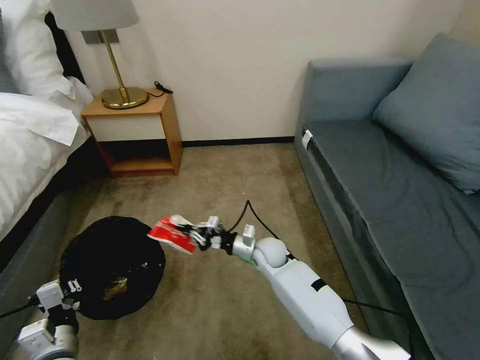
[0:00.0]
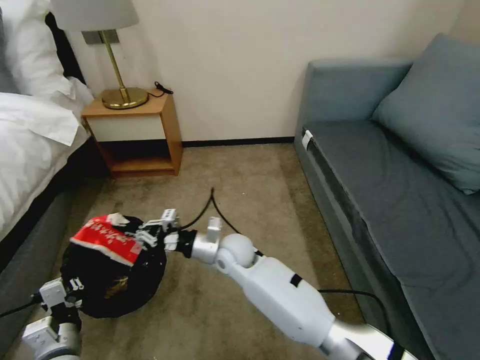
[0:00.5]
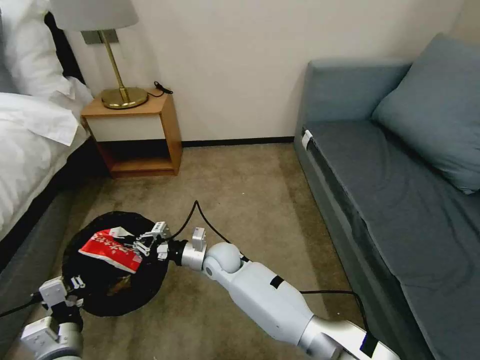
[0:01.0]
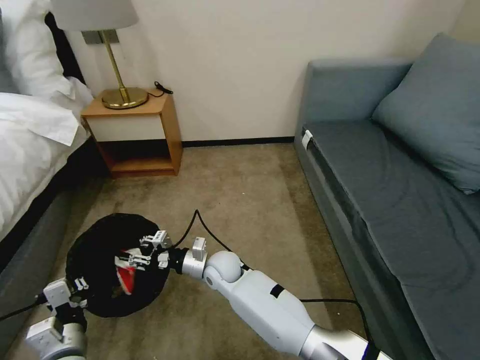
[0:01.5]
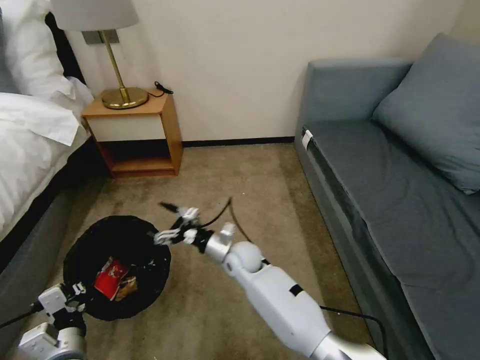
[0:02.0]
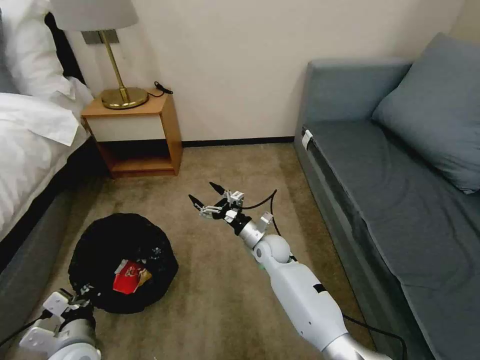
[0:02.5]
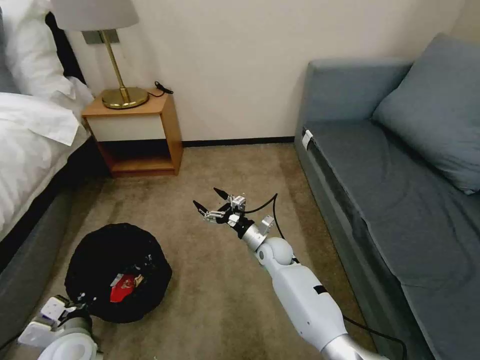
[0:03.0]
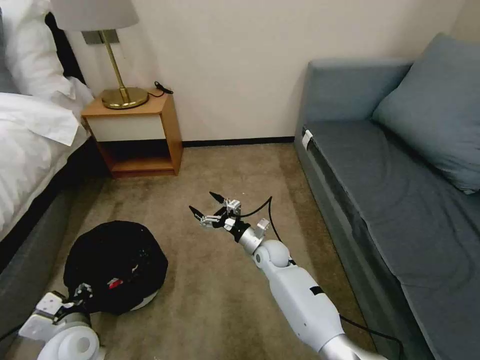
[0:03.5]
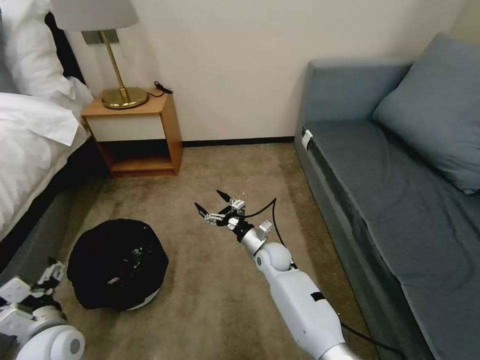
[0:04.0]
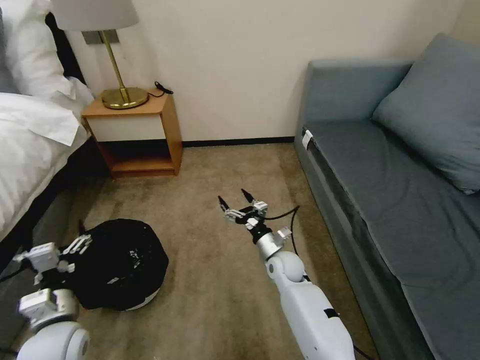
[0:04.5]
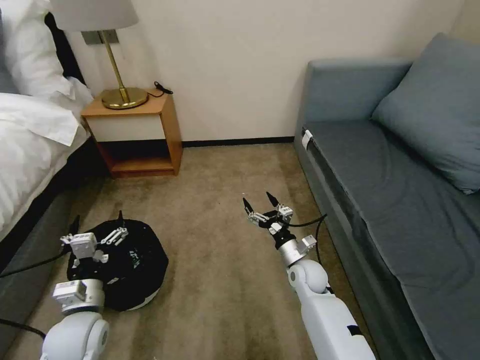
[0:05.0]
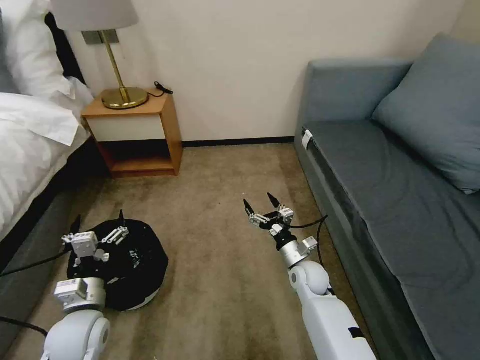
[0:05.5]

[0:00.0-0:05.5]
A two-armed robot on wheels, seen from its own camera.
Task of the whole recording: Pick up the trash bin, then pick up the garbage on the floor and place it into the trash bin.
0:00.0 to 0:02.0: The right gripper goes roughly 10 cm to the left, and opens.
0:02.0 to 0:03.5: The right gripper is displaced to the right by approximately 10 cm; the left gripper is displaced forward by approximately 5 cm, and opens its fingers.
0:03.5 to 0:05.5: The left gripper opens up; the right gripper travels to the right and backward by some 10 cm.

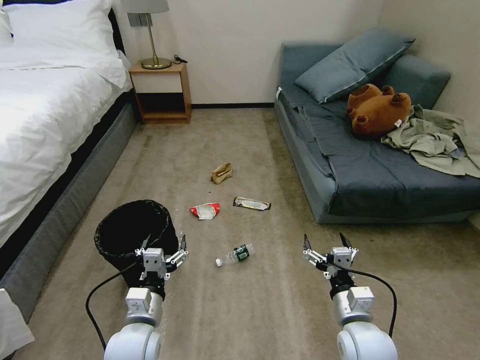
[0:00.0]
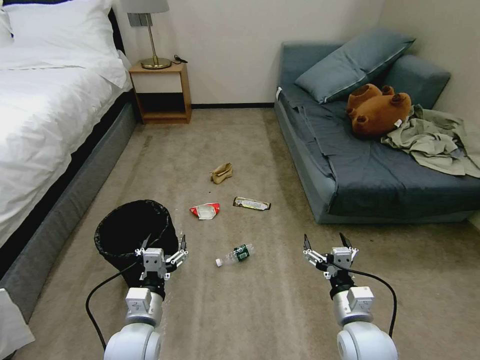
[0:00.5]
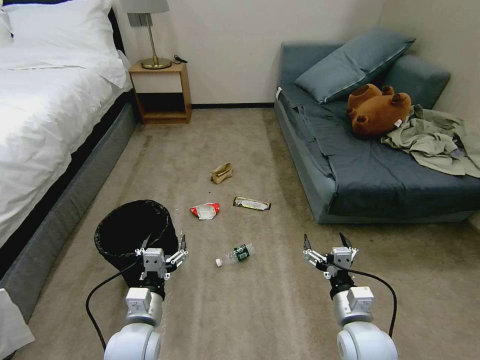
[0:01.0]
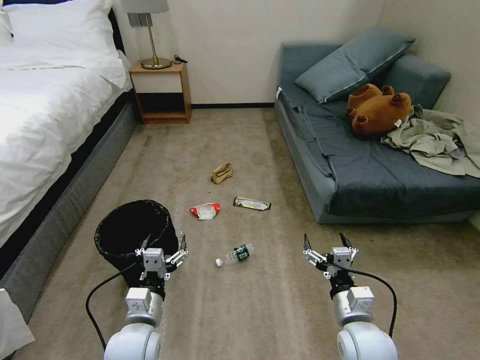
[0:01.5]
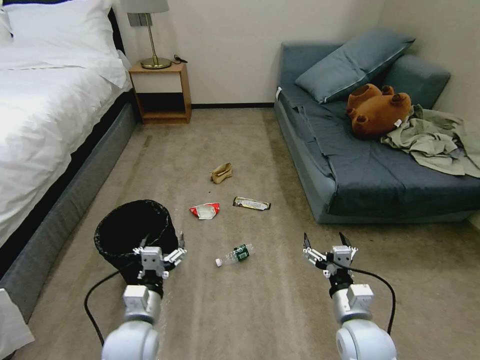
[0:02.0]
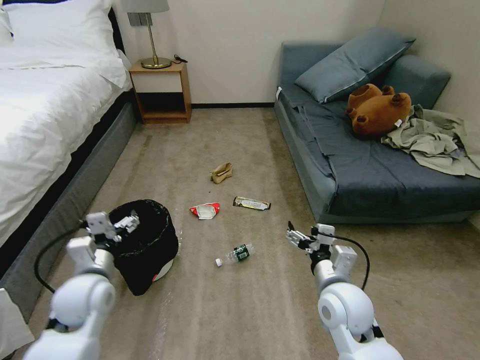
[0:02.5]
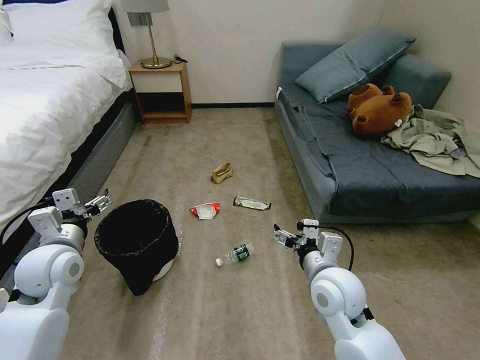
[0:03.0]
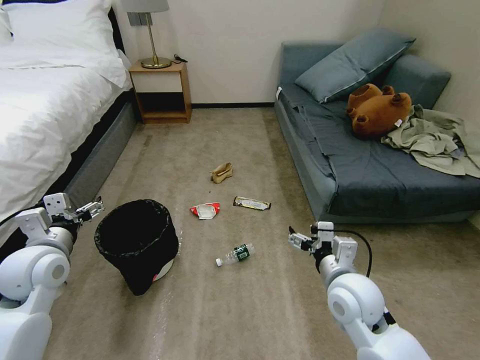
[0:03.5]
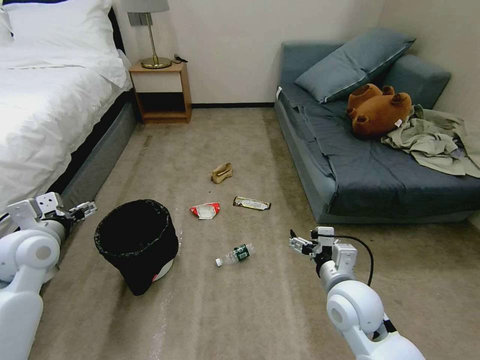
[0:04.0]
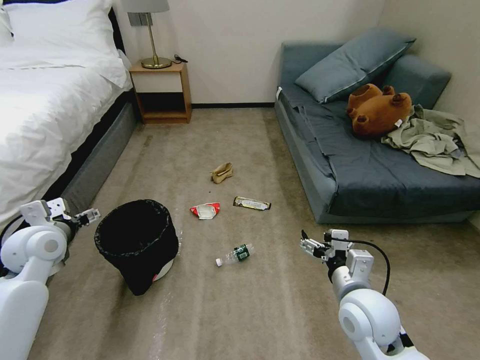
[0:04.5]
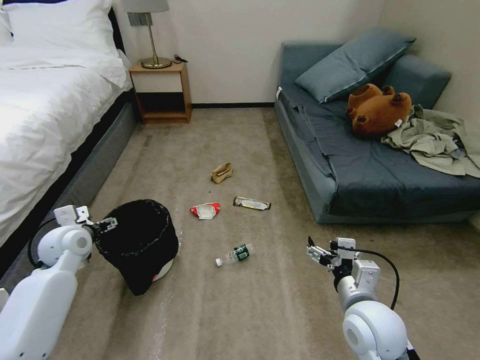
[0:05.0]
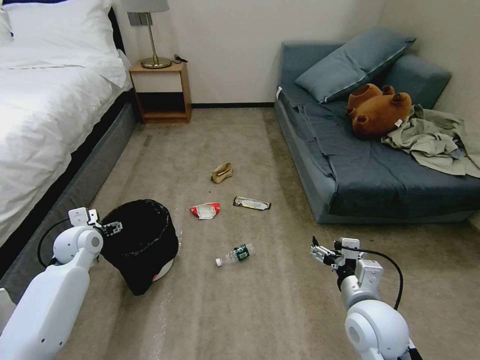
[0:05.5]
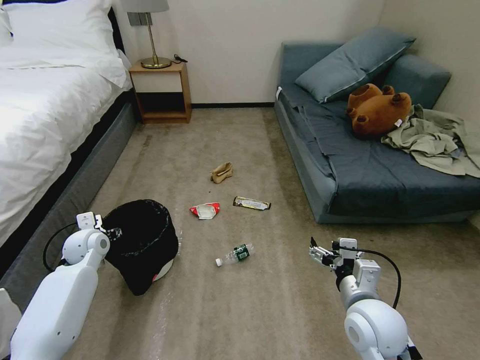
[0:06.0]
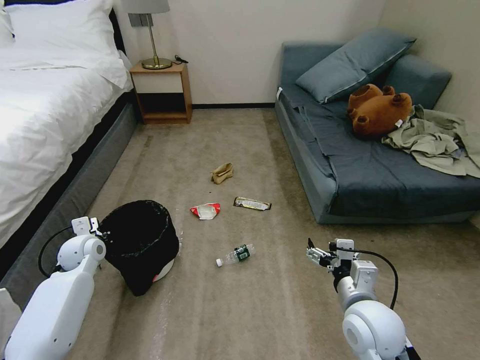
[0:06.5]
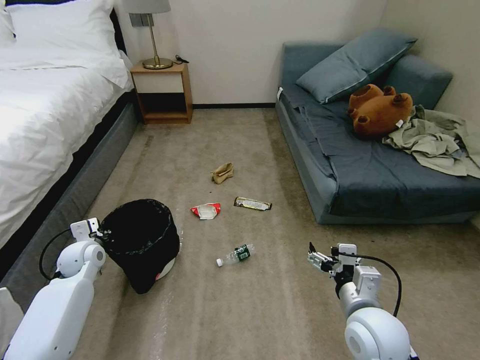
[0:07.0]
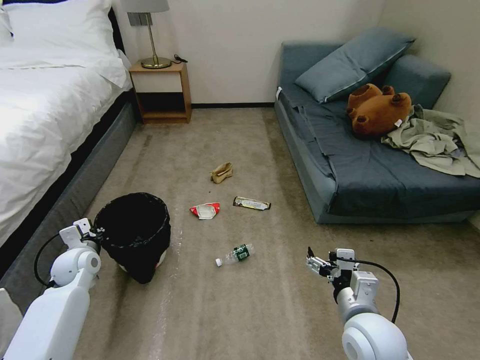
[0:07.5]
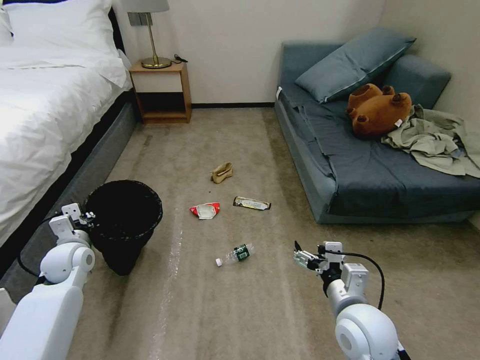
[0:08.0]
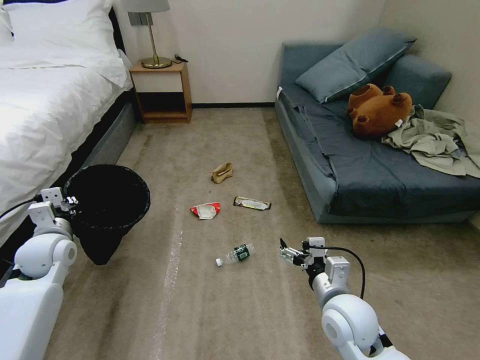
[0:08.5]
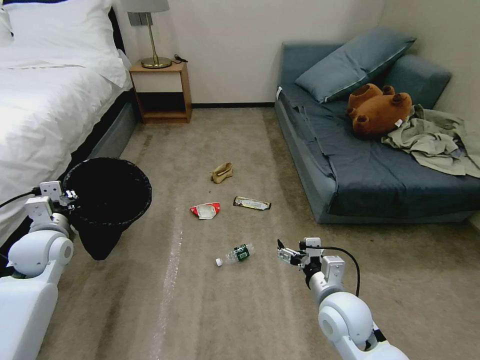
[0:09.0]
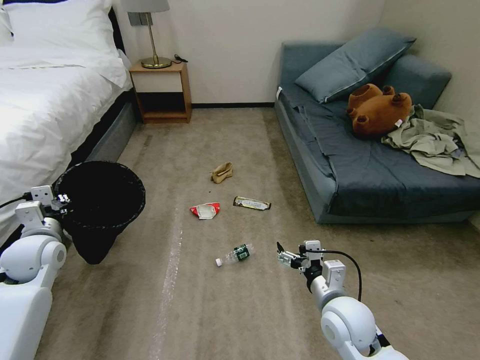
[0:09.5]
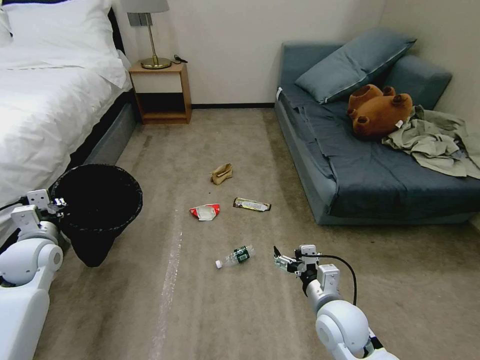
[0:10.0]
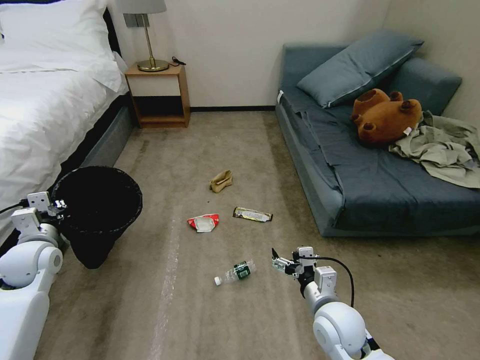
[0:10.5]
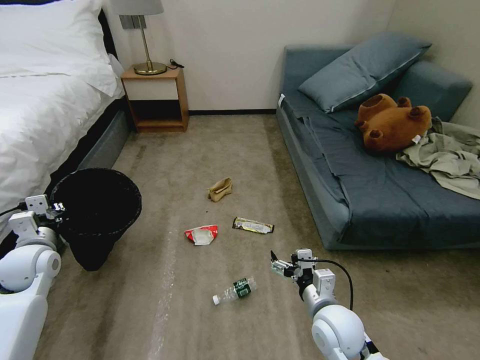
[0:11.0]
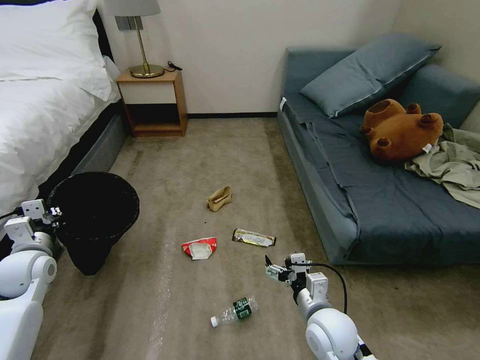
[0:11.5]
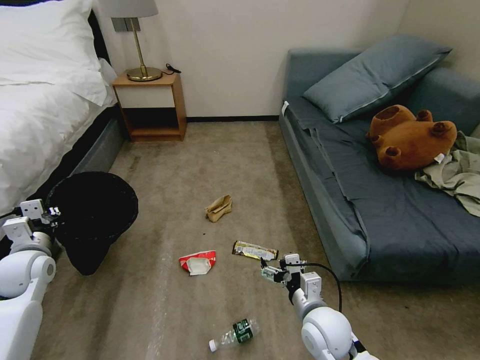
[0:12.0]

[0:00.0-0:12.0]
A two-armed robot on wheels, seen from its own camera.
Task of the whole recording: Pick up the trash bin, then pick up the garbage on the floor and place it into the trash bin.
0:02.0 to 0:04.0: The right gripper shifts approximately 5 cm upward. Meanwhile the left gripper goes some 25 cm to the left, upward and forward.
0:04.0 to 0:06.0: The left gripper heads downward and forward, covering approximately 15 cm.
0:06.0 to 0:08.0: The left gripper moves some 5 cm, and closes up.
0:08.0 to 0:10.0: The left gripper goes roughly 5 cm upward, while the right gripper heads downward, covering approximately 5 cm.

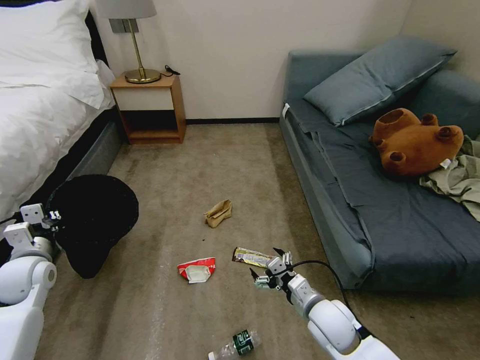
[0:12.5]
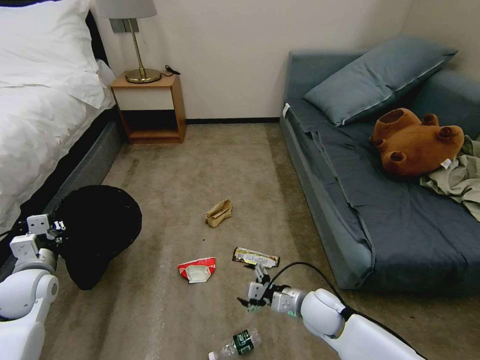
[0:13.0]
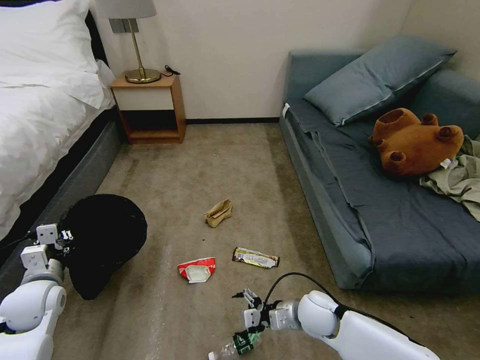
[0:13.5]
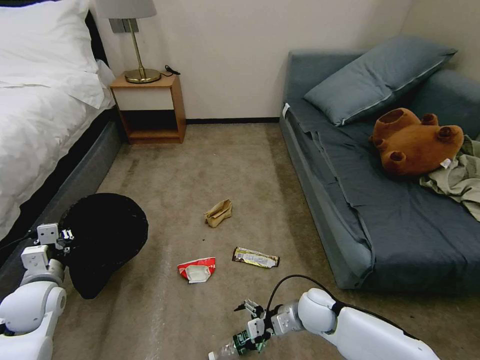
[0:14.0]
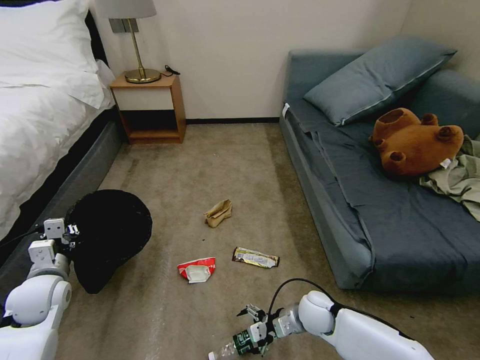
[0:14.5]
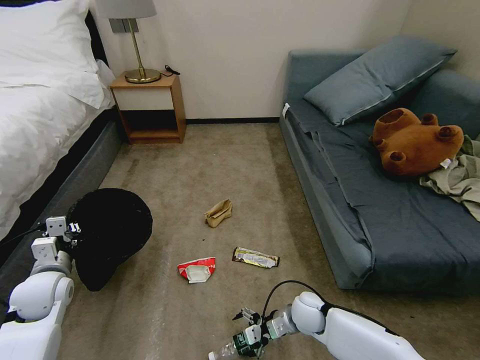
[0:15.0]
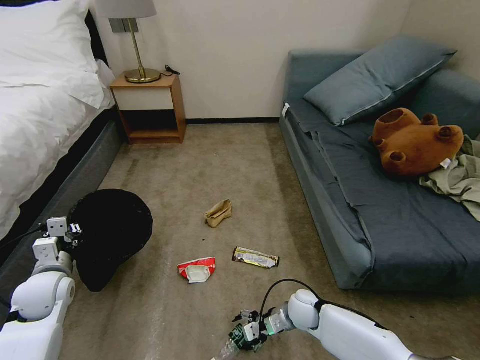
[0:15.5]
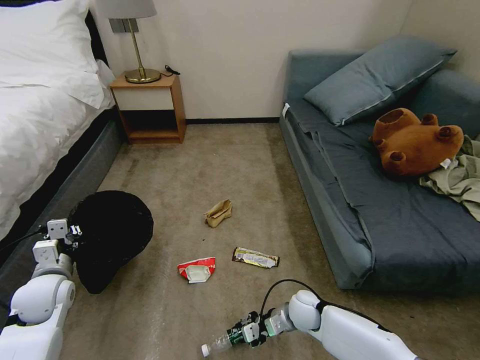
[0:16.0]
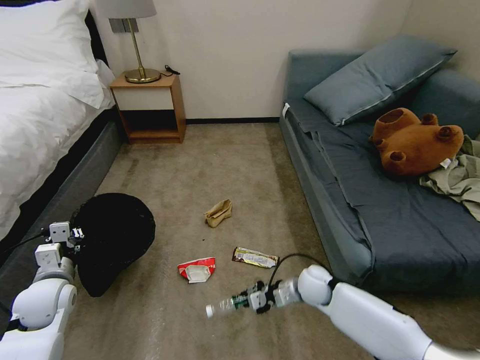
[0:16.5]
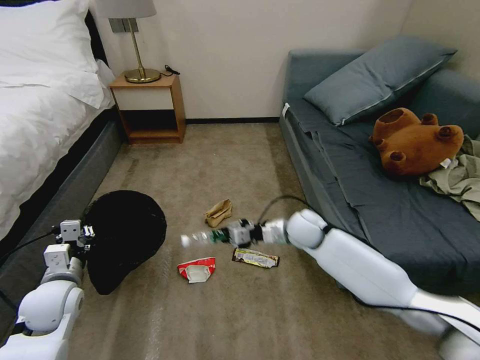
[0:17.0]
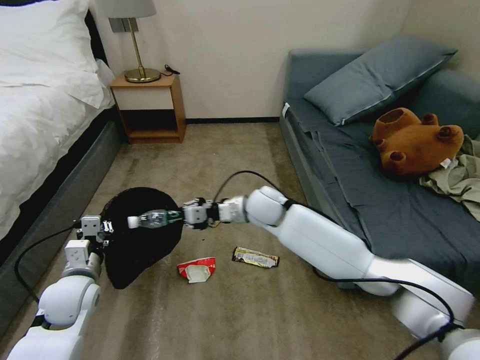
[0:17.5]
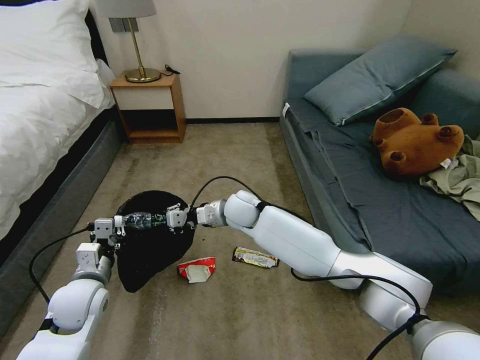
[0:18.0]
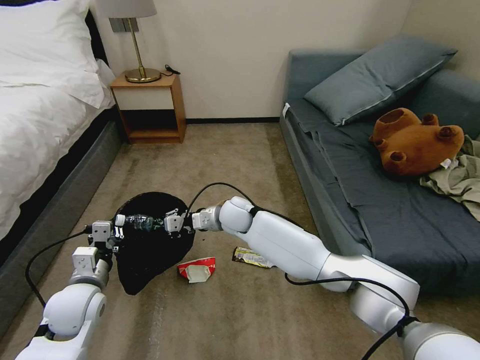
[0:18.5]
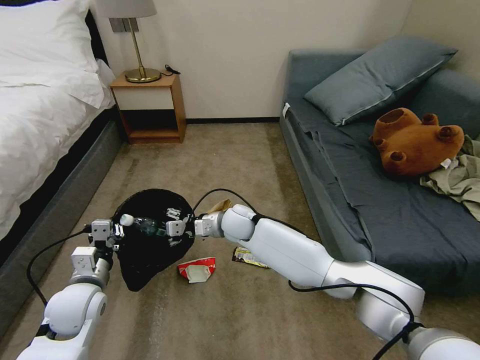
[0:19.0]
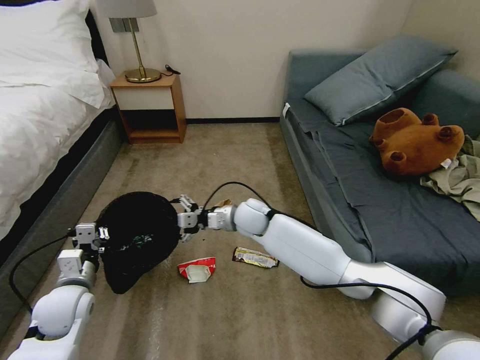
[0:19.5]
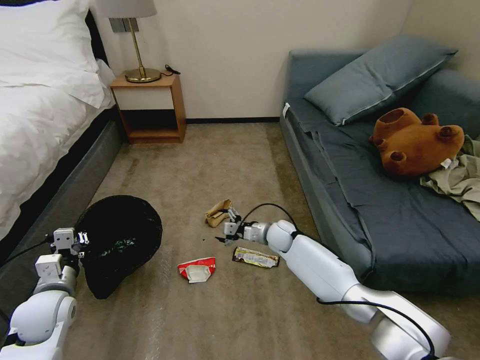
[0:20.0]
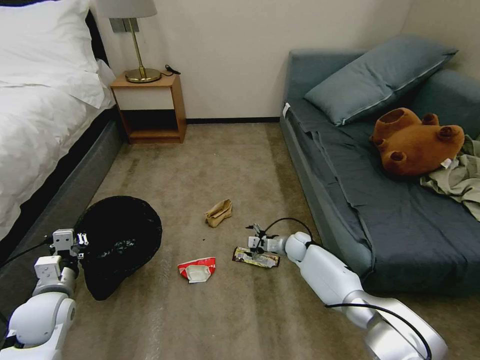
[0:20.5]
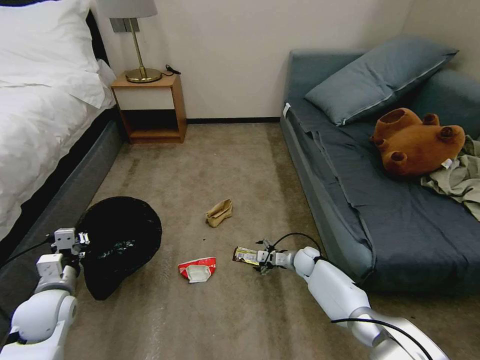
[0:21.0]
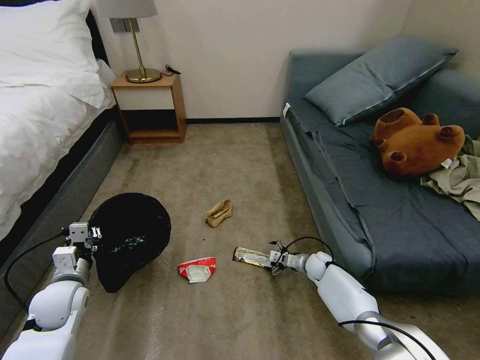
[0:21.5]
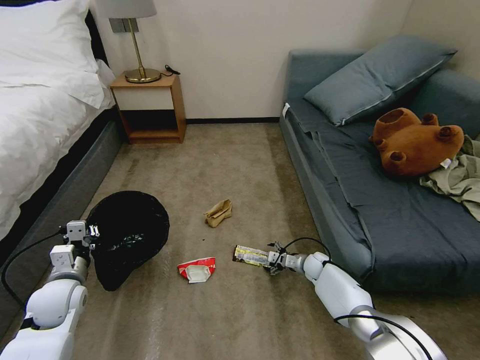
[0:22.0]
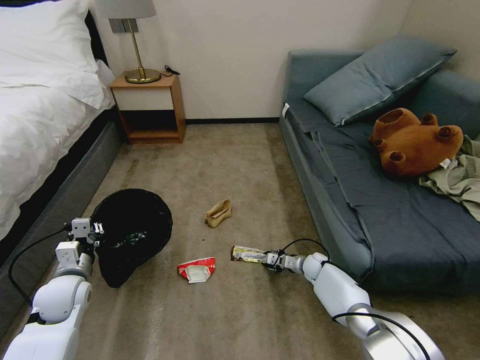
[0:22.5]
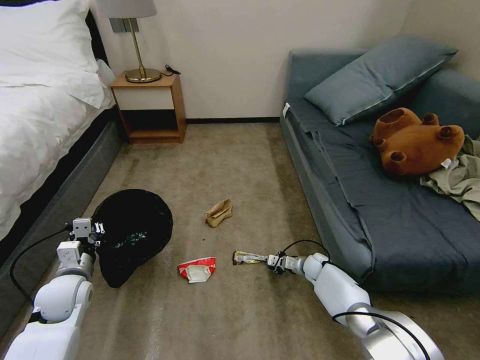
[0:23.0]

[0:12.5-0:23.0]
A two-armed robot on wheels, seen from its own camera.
Task of the whole recording: Pick up the trash bin, then pick up the garbage on the floor and place it into the trash bin.
0:12.5 to 0:14.5: The left gripper ends up about 5 cm from where it was, while the right gripper is displaced downward by some 10 cm.
0:14.5 to 0:16.5: The right gripper shifts some 5 cm forward, and closes up.
0:16.5 to 0:19.0: The left gripper goes about 10 cm to the right, while the right gripper travels to the left, upward and forward by roughly 25 cm, and opens.
0:19.0 to 0:21.0: The left gripper heads to the left, covering some 5 cm; the right gripper moves to the right and downward, about 30 cm.
0:21.0 to 0:23.0: The right gripper shifts by approximately 5 cm, and closes.
